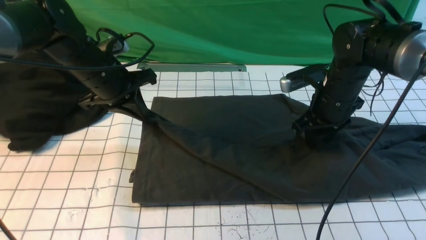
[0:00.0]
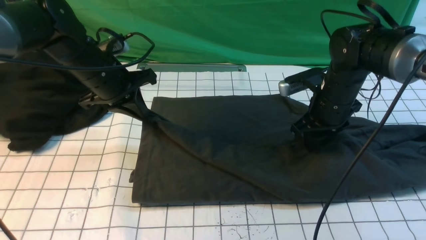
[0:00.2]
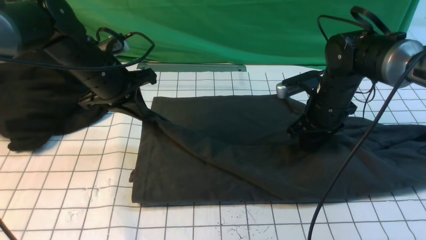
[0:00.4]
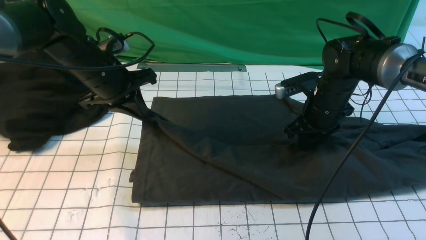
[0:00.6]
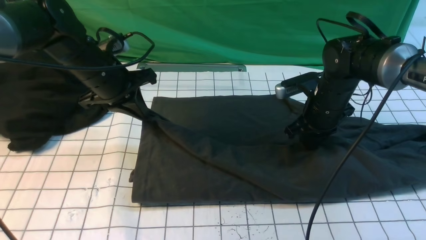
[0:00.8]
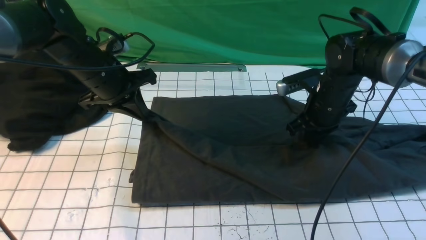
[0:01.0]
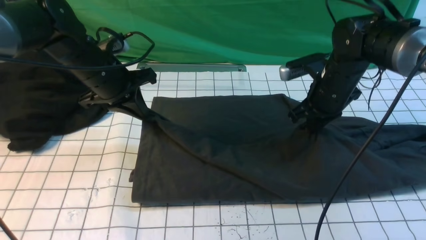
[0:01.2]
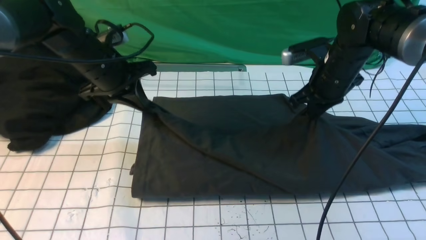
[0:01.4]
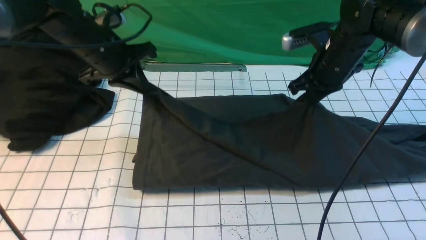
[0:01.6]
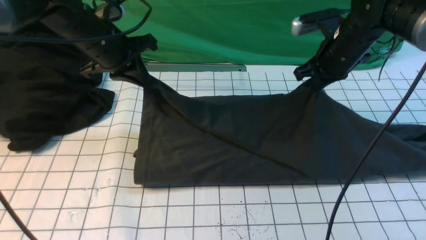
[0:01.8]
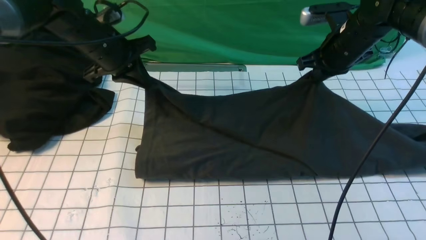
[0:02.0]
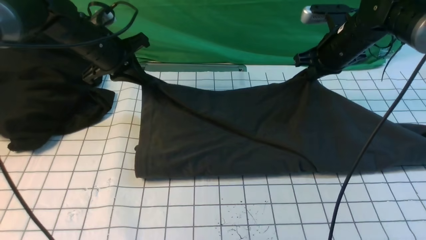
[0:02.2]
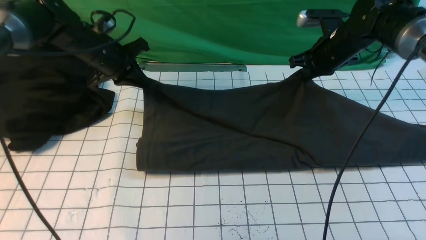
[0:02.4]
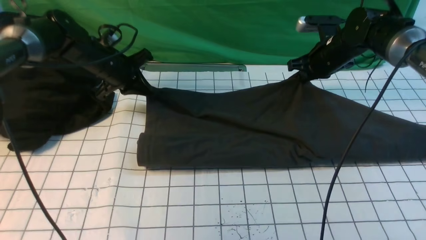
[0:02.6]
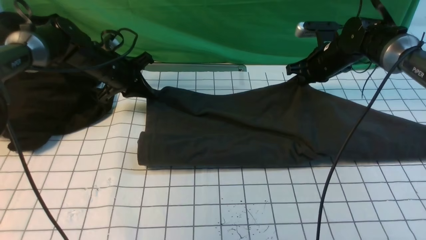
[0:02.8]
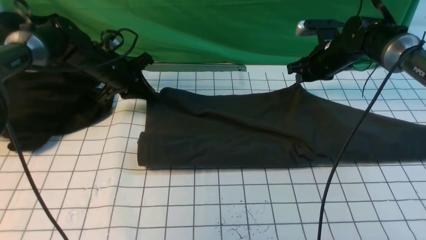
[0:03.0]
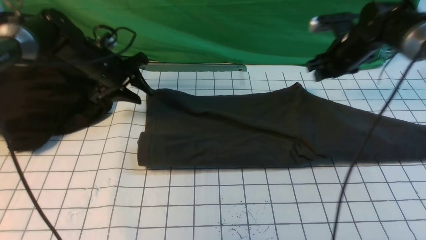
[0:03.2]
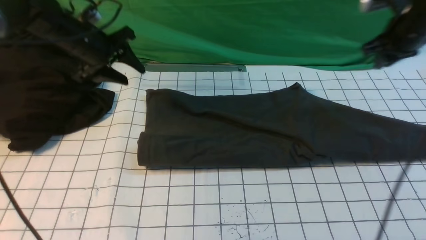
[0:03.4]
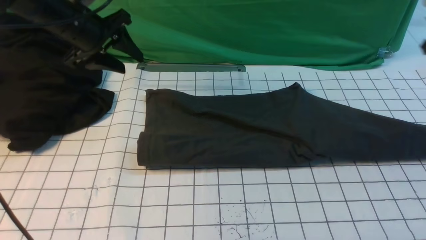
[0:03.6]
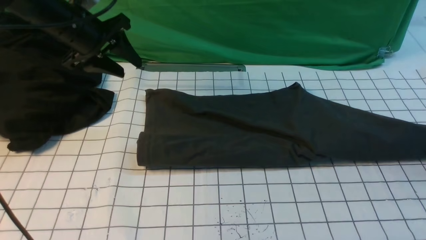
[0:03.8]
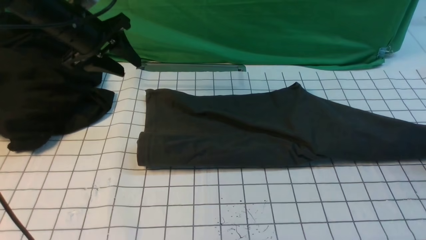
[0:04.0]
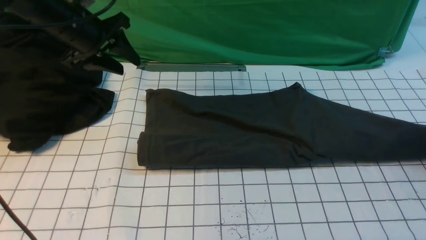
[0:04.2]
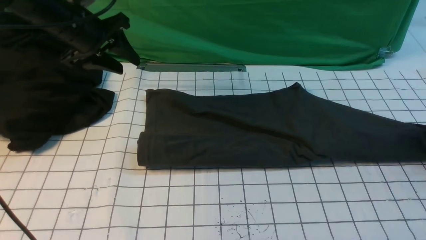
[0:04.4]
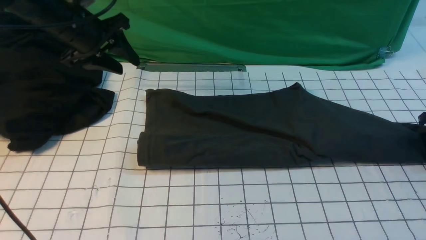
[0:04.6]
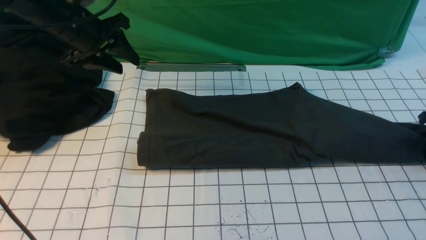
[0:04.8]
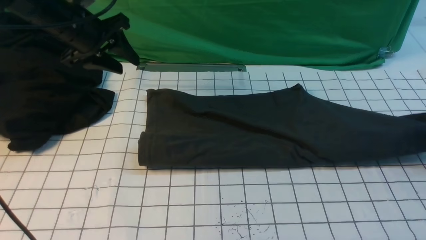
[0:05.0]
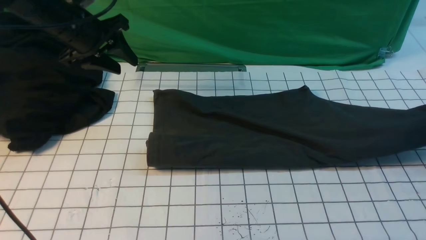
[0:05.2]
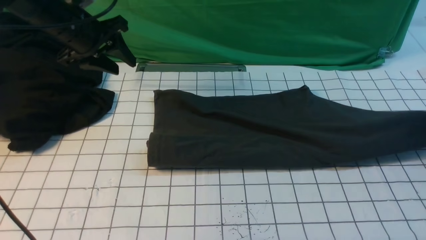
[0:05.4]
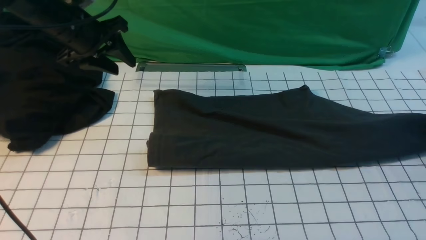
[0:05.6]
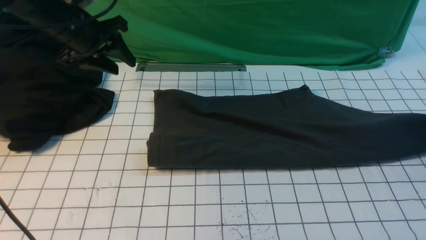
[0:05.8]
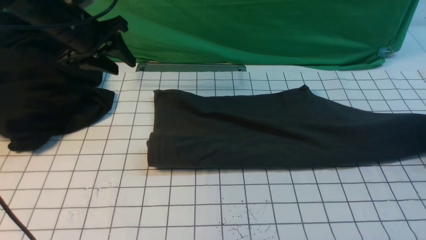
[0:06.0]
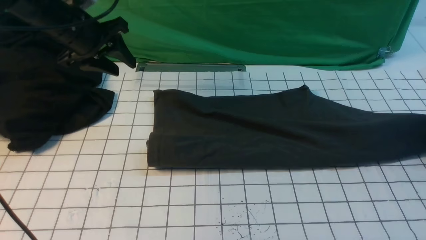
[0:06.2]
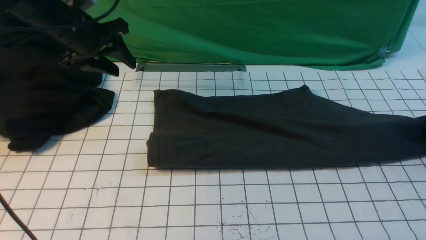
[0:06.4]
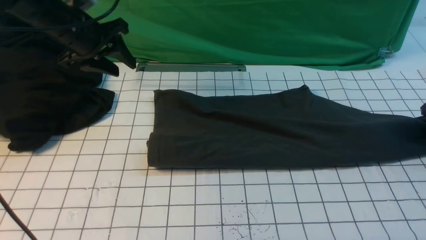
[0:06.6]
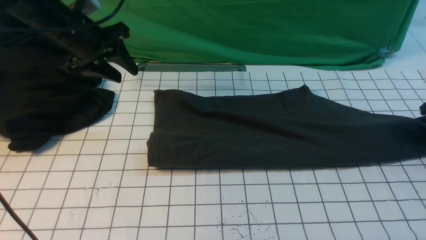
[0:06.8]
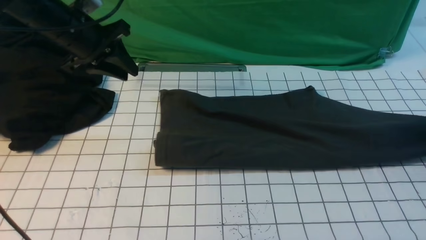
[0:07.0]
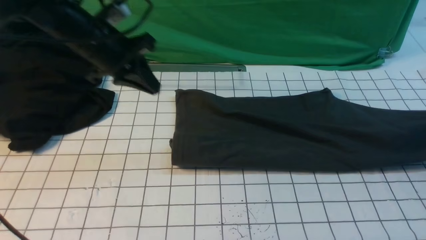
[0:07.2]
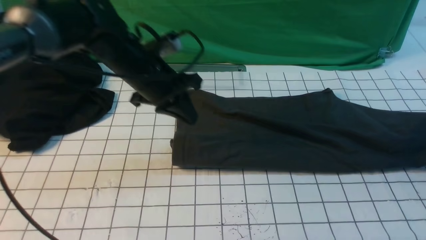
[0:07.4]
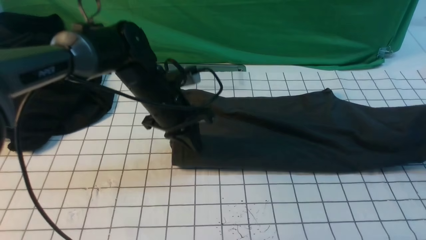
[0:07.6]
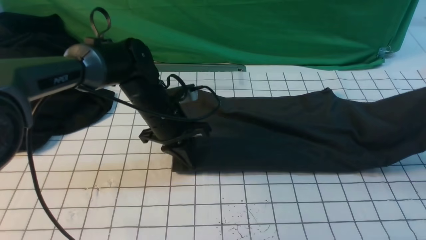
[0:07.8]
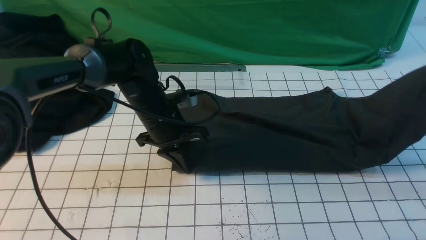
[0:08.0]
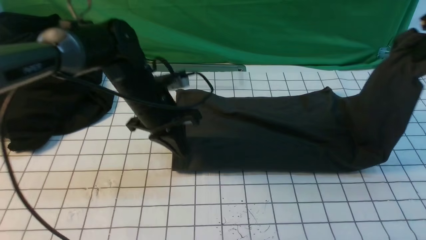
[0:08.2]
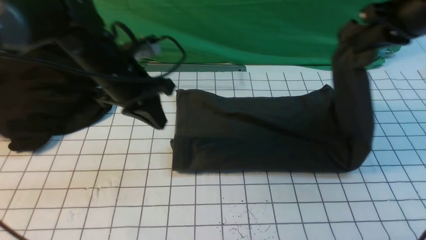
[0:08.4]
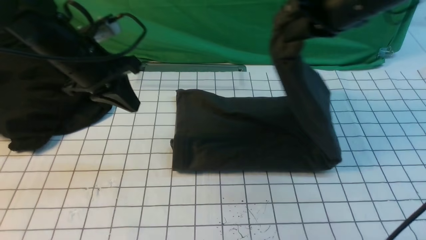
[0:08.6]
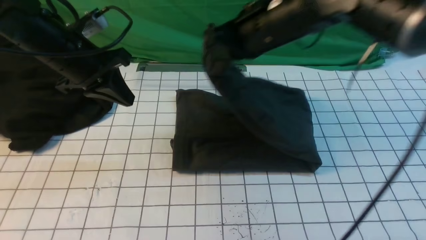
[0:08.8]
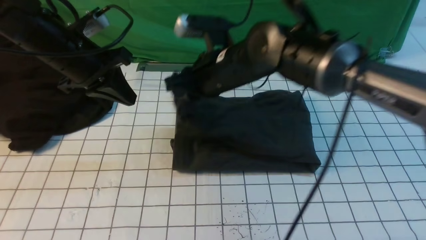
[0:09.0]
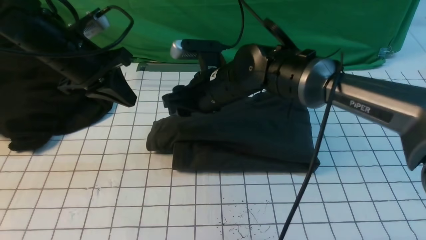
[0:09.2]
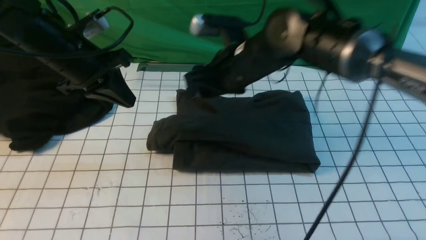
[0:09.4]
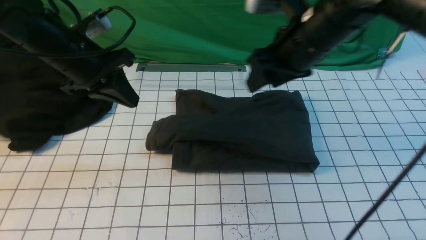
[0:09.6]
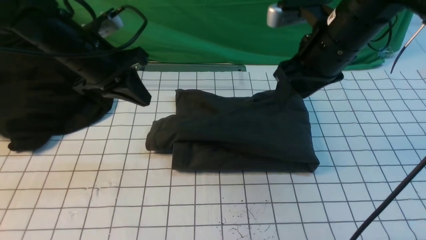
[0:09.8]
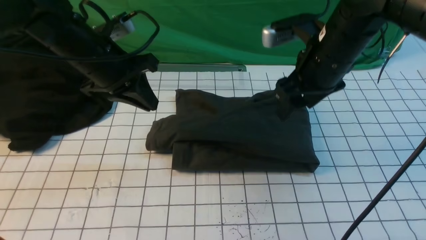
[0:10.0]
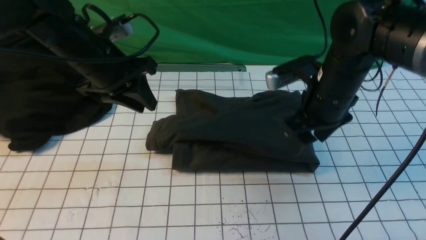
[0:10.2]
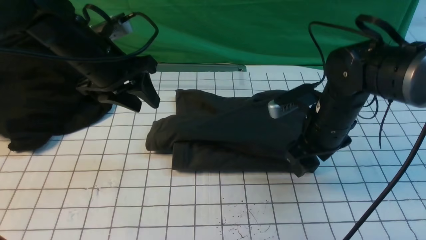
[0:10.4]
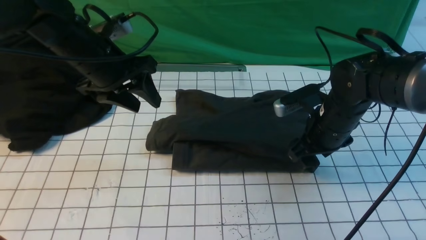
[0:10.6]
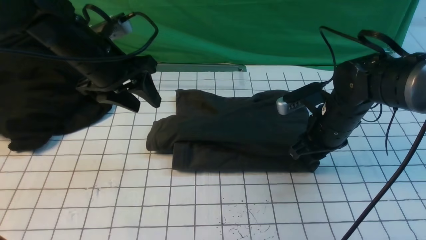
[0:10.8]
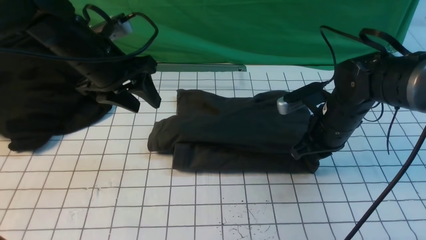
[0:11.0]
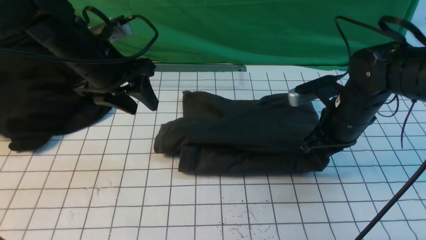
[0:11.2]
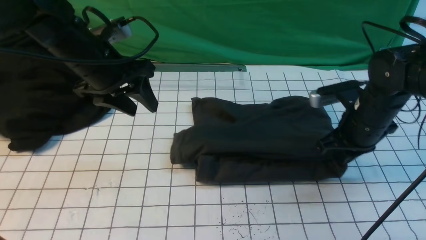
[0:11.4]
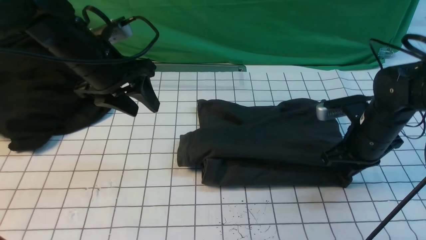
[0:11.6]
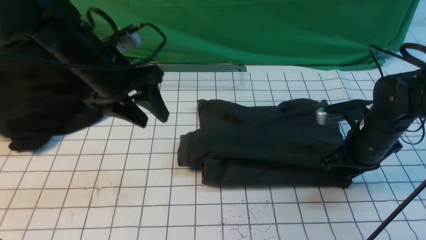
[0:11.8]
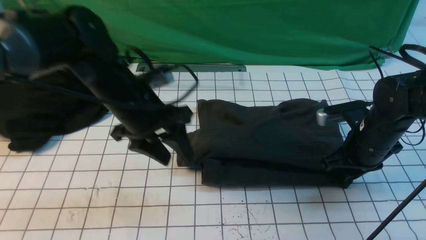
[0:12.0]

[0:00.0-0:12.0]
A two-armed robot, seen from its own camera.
Step, 0:00.0 to 0:03.0: use both arms to drag the lower edge of the fabric forward and fold it over the upper edge.
Step, 0:03.2 to 0:06.8: use the right arm to clamp the right edge of the fabric.
Step, 0:07.0 to 0:09.2: use the right arm to drag the right edge of the fabric to the left and folds it over the left edge.
0:00.0 to 0:01.6: The right gripper moves some 5 cm, and closes its fingers.
0:01.6 to 0:03.0: The left gripper shifts about 10 cm downward and forward. Meanwhile the right gripper goes roughly 10 cm forward and downward, and opens its fingers.
0:03.0 to 0:04.4: The right gripper goes approximately 25 cm to the right and backward. Meanwhile the left gripper shifts approximately 10 cm upward, and opens up.
0:04.4 to 0:06.0: The right gripper opens its fingers.
0:06.0 to 0:07.6: The left gripper is displaced to the right, downward and backward by about 20 cm, and closes. The right gripper goes roughly 10 cm upward, and closes up.
0:07.6 to 0:09.0: The left gripper shifts some 15 cm to the left and upward, while the right gripper is displaced to the left by about 50 cm, and opens up.
0:09.0 to 0:10.4: The right gripper shifts about 15 cm to the right, and opens, while the left gripper opens.
0:10.4 to 0:12.0: Both grippers move to the right, roughly 5 cm. The right gripper closes.

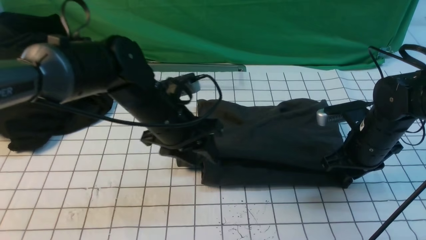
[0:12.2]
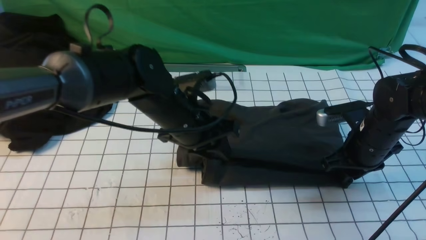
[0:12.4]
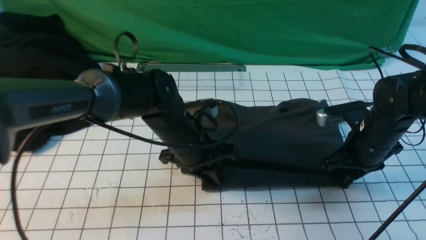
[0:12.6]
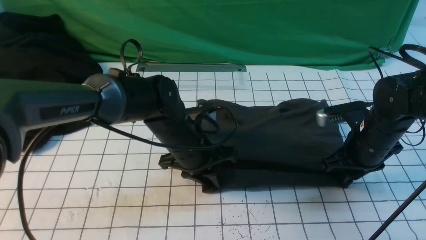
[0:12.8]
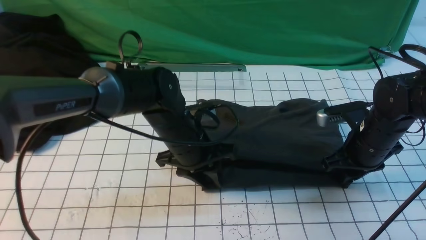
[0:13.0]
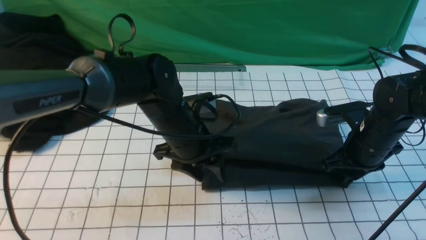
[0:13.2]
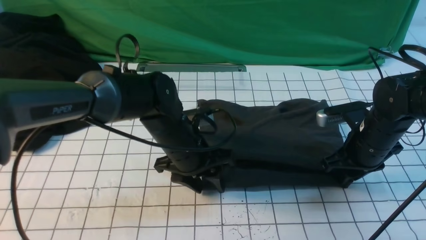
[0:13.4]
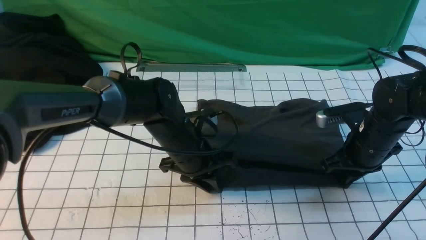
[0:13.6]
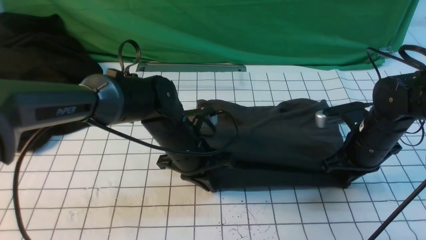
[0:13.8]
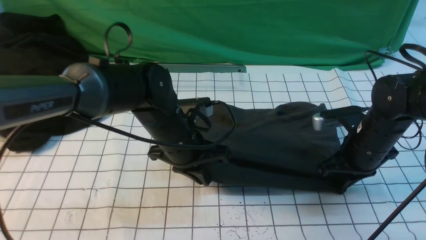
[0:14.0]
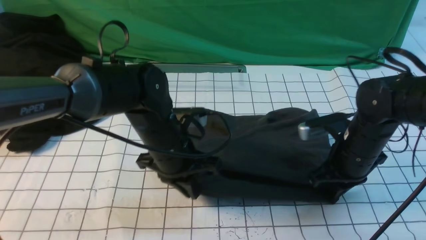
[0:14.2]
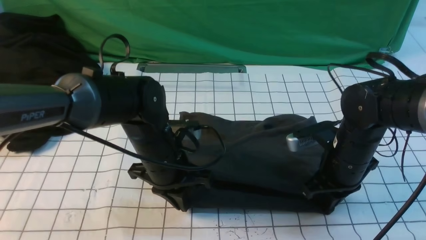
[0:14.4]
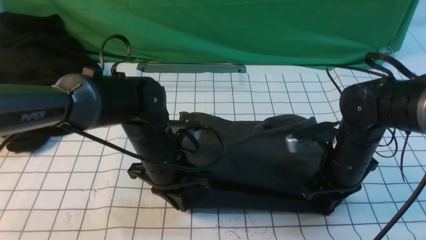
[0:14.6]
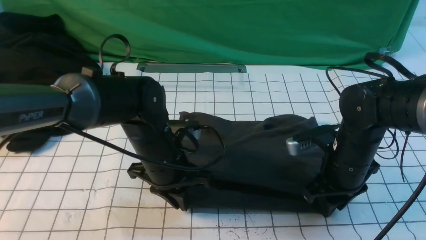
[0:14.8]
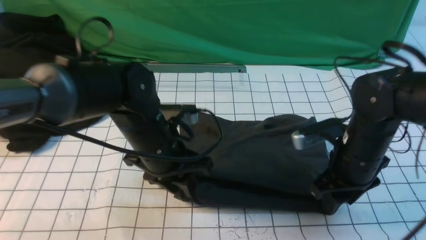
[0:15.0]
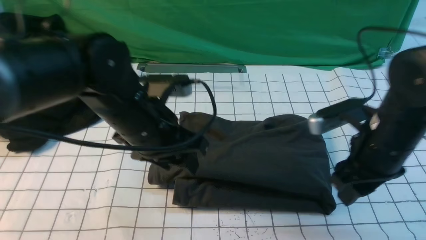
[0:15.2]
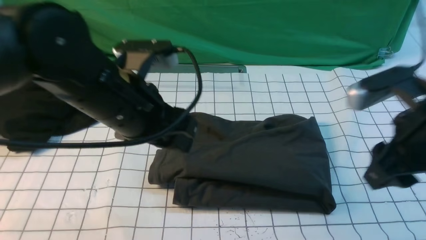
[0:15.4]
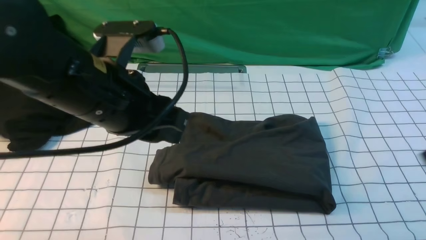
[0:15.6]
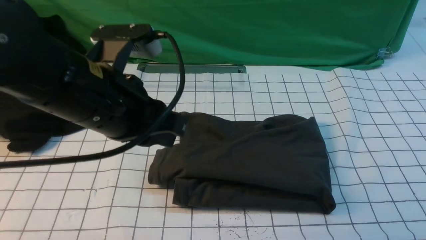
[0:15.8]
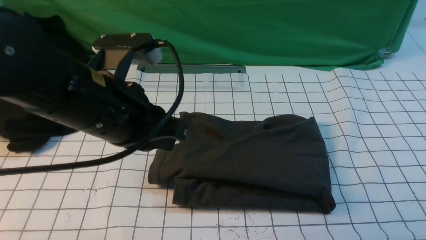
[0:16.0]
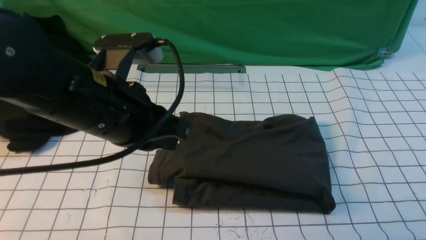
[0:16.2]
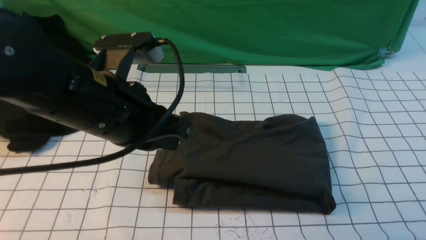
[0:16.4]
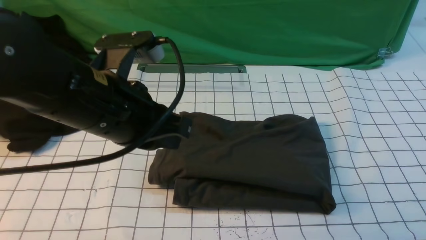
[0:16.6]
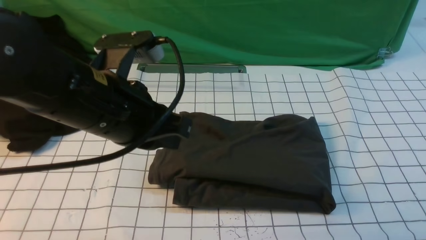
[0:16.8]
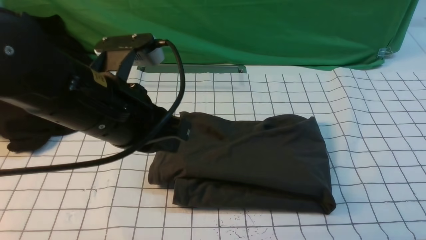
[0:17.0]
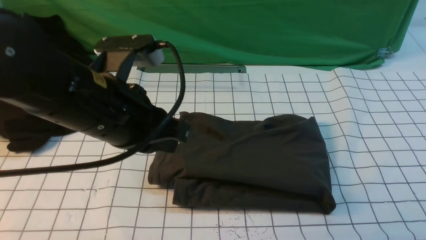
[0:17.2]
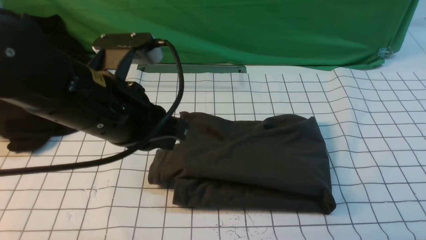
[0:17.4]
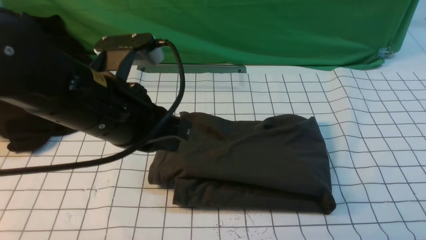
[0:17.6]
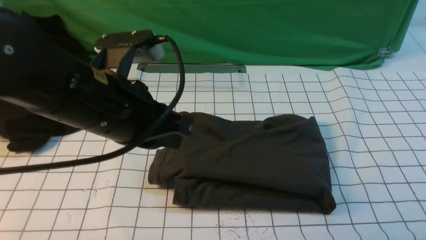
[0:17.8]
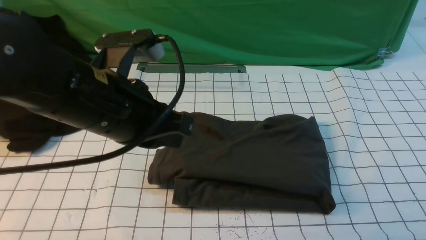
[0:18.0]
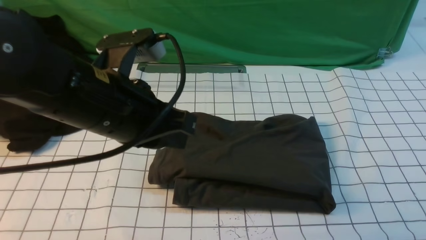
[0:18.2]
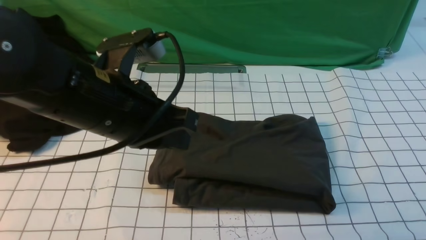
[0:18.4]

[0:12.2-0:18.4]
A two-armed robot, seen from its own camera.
0:12.2 to 0:13.8: The left gripper is displaced downward by some 5 cm, and closes its fingers.
0:13.8 to 0:15.4: Both grippers travel together upward and backward, approximately 20 cm. The left gripper opens its fingers. Meanwhile the right gripper opens up.
0:15.4 to 0:16.8: The left gripper closes up, while the right gripper moves backward and to the right, approximately 20 cm, and closes up.
0:16.8 to 0:18.4: The right gripper is displaced downward by roughly 15 cm.
